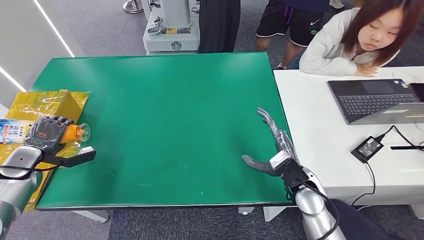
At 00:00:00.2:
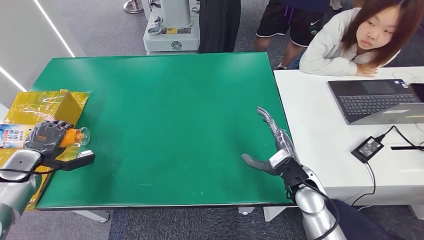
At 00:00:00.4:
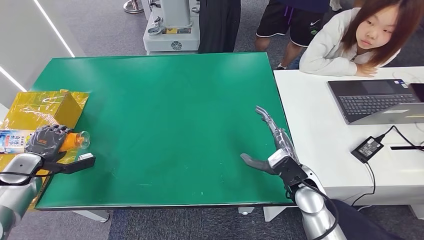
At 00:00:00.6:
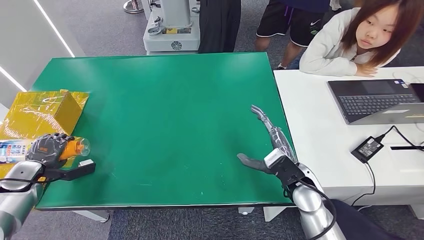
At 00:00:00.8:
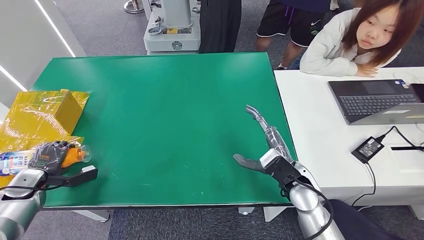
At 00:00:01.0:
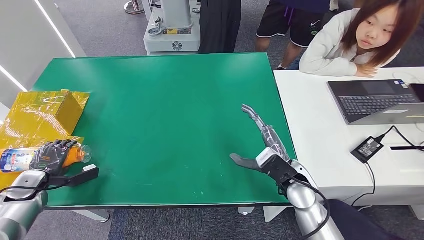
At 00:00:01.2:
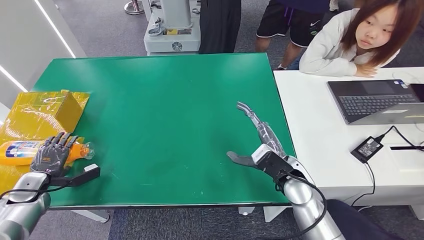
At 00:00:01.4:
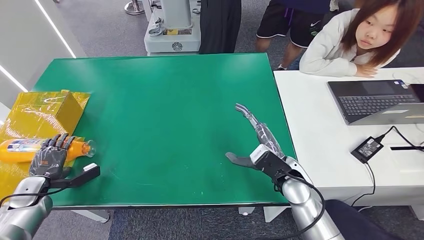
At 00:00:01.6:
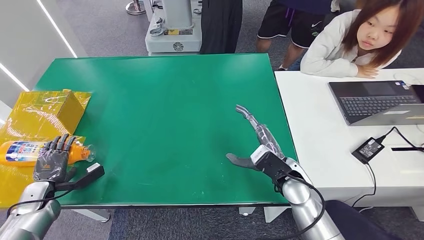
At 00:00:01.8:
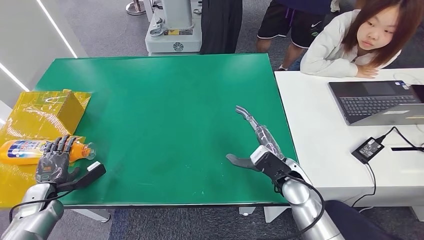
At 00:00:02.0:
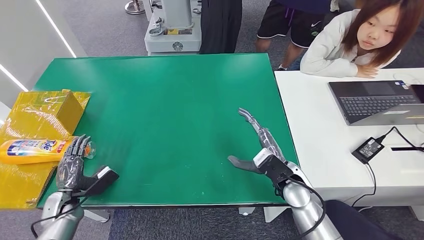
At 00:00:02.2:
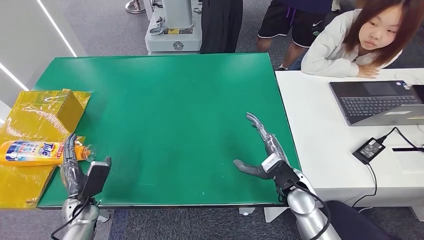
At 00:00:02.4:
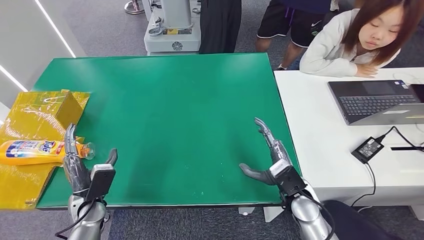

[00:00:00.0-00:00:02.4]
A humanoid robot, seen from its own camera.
Step, 00:00:00.0 to 00:00:02.4: Turn the bottle to the front side.
00:00:00.0 to 00:00:01.2: The left hand heads downward and backward, covering some 10 cm.
00:00:01.2 to 00:00:02.4: The left hand goes roughly 20 cm to the right. The right hand ends up about 5 cm from where it was.

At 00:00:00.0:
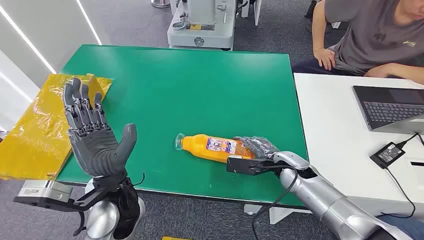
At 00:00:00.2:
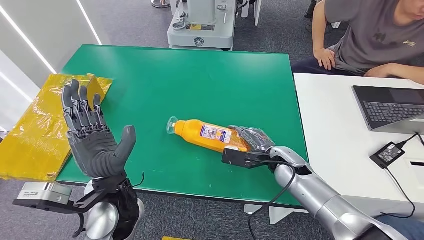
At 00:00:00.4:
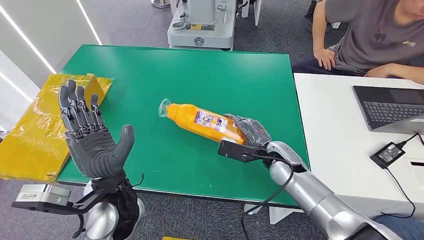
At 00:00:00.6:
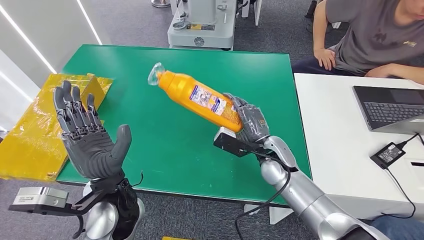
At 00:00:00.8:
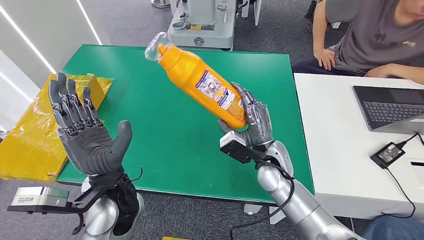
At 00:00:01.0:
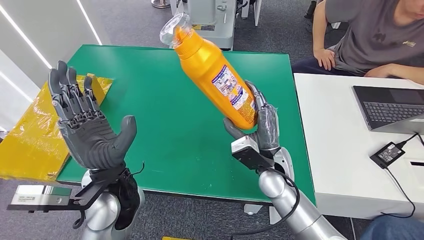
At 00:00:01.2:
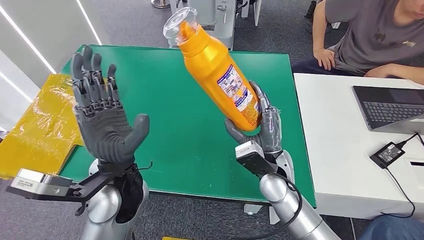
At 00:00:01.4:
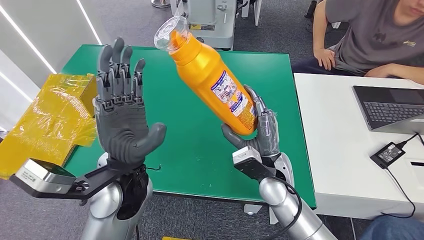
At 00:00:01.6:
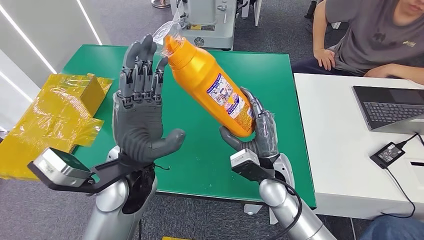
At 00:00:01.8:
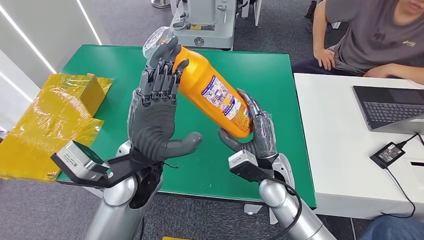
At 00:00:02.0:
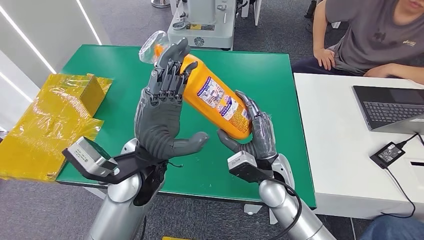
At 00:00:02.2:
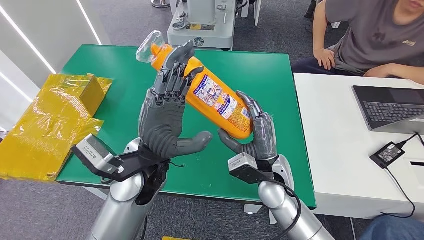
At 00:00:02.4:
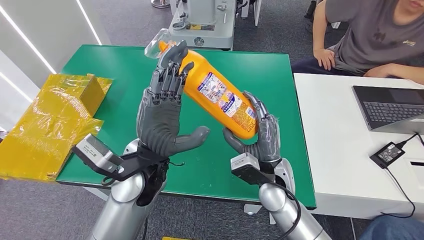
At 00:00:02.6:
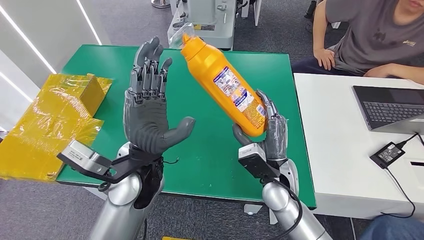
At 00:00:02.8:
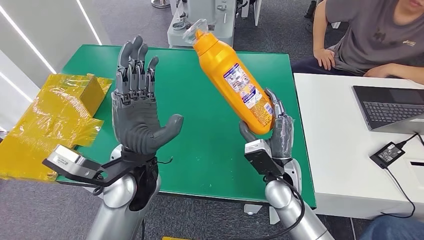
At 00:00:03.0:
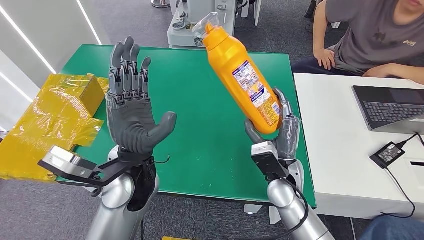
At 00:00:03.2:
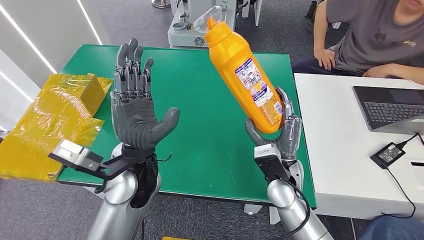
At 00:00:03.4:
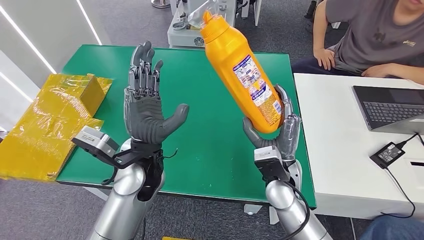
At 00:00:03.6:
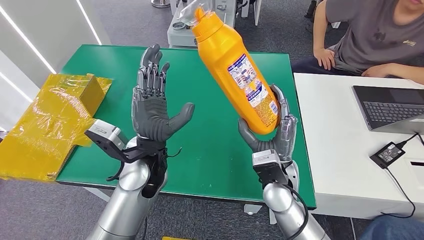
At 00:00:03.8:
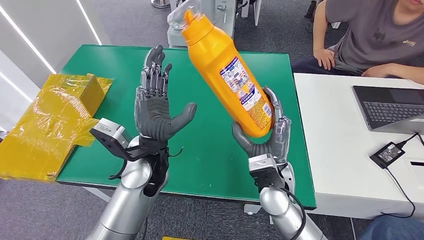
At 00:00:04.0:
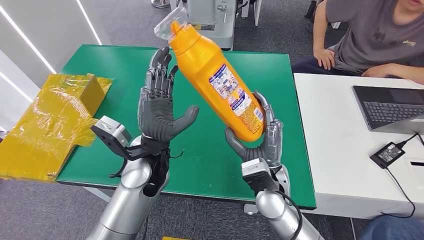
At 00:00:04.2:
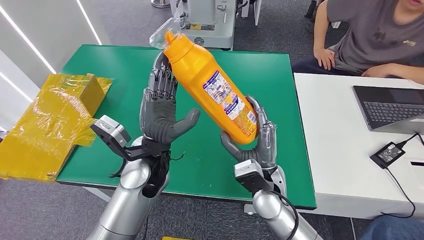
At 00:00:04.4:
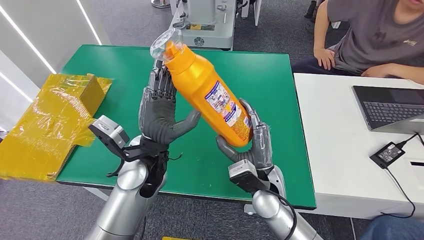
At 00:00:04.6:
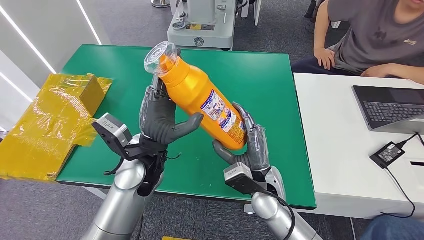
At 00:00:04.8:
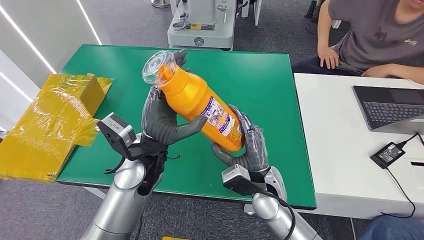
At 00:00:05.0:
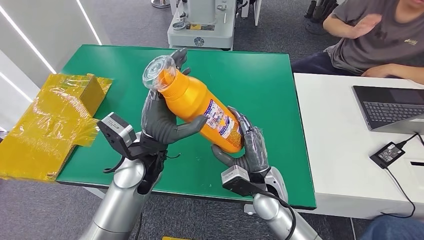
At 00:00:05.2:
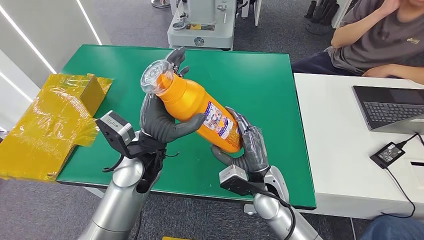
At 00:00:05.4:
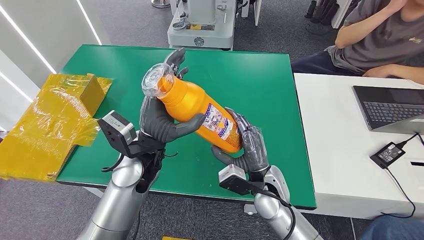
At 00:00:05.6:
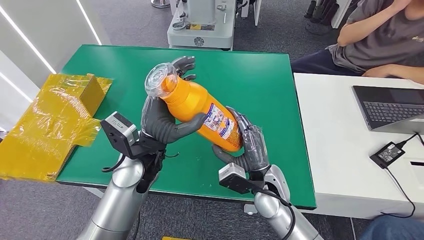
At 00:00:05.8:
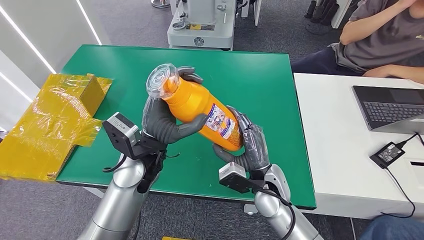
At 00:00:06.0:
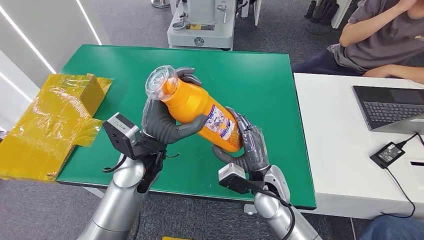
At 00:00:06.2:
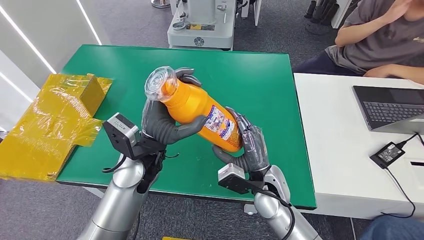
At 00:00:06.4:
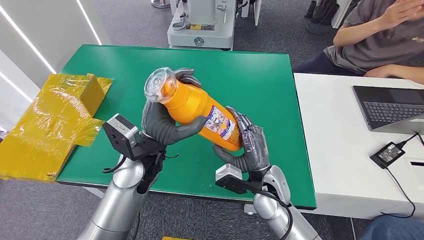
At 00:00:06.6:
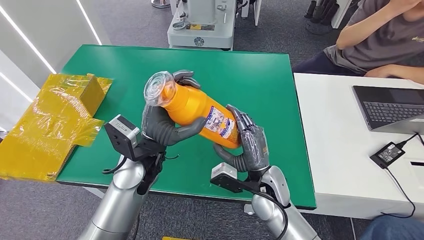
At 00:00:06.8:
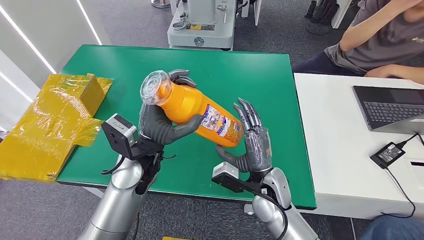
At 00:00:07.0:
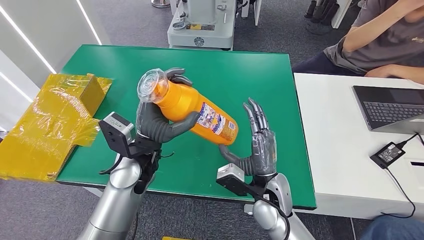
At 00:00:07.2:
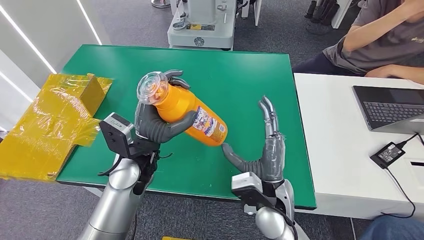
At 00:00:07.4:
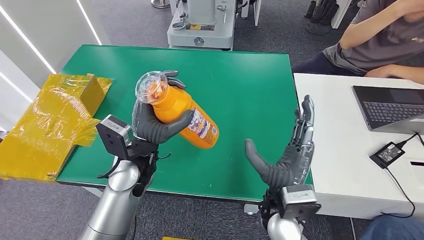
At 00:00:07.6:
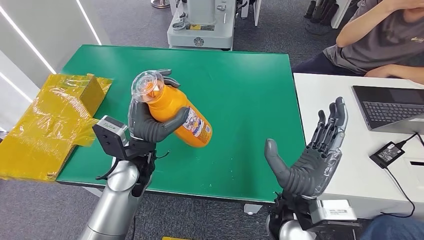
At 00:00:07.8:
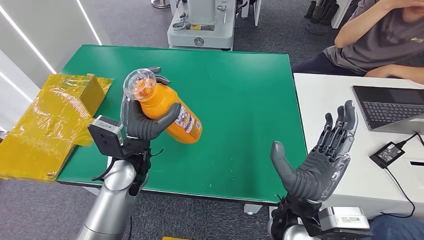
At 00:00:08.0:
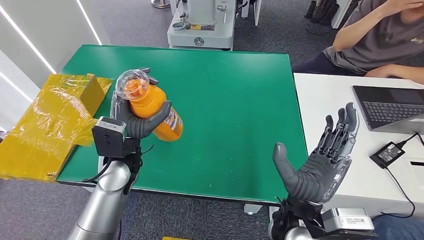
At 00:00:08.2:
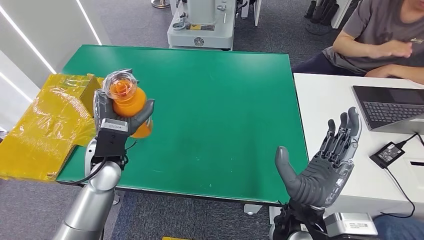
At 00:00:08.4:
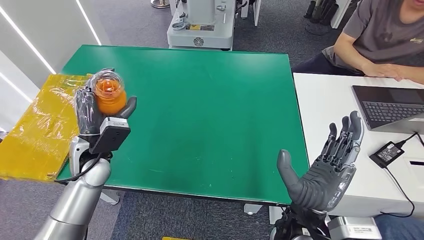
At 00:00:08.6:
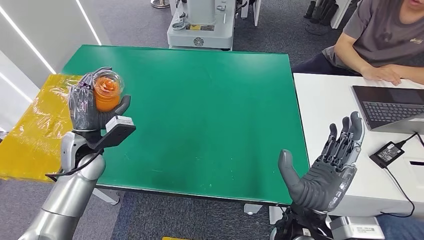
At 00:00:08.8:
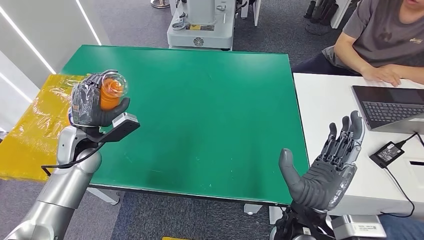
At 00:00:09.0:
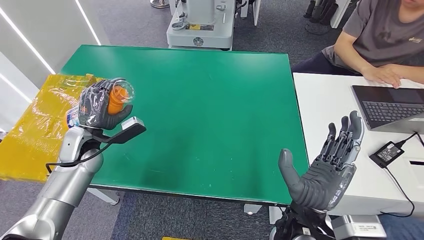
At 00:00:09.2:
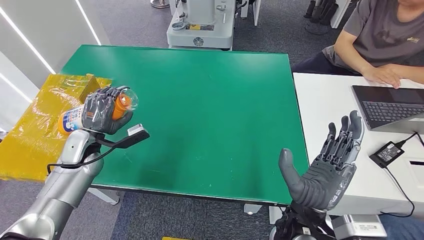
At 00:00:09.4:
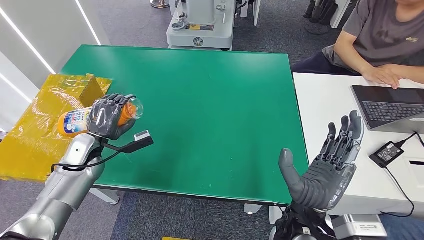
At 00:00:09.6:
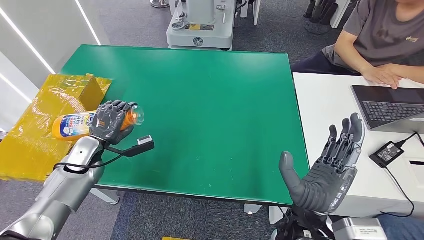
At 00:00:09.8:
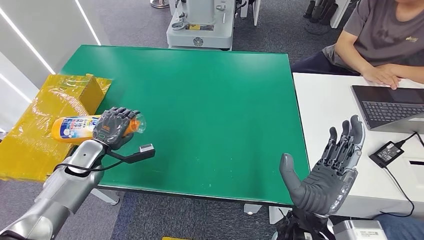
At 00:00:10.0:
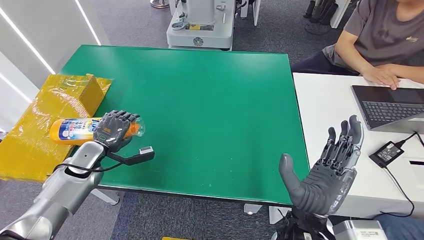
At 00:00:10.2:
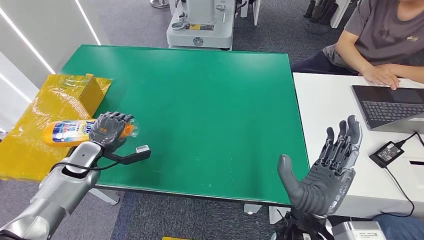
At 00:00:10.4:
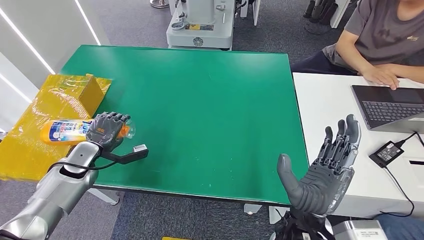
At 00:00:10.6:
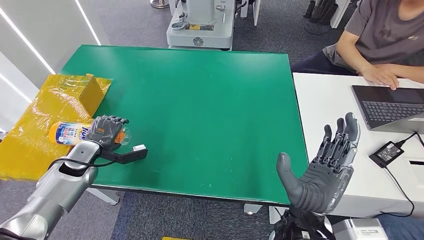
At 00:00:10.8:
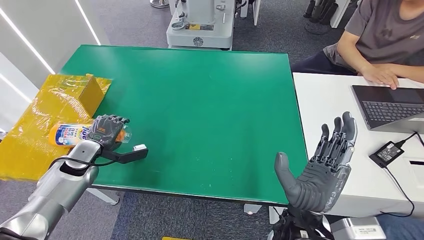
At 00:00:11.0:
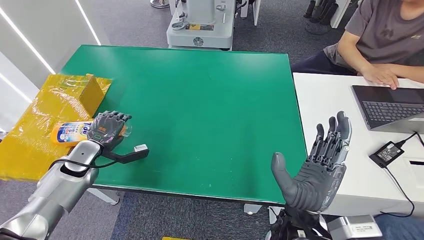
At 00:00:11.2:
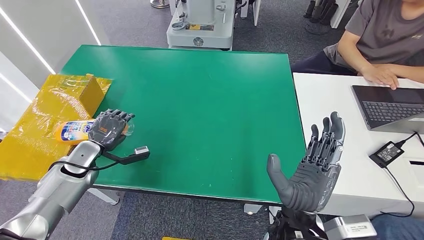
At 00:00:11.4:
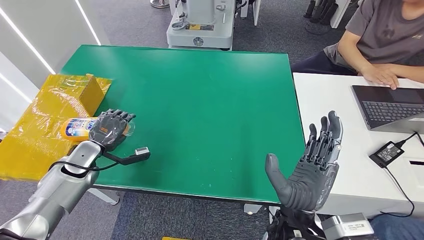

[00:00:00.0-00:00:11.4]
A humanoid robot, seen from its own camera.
Step, 00:00:00.0 to 00:00:04.8: Pick up the bottle from the table.
00:00:01.4 to 00:00:02.8: The hands stay close to where they were, moving slightly.
00:00:04.2 to 00:00:05.6: The hands stay close to where they were, moving slightly.
00:00:05.6 to 00:00:07.2: The hands move only a little.
00:00:08.6 to 00:00:10.0: The left hand moves to the left and downward, approximately 10 cm.
00:00:10.0 to 00:00:11.4: The hands stay close to where they were, moving slightly.

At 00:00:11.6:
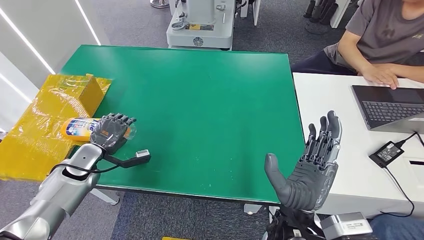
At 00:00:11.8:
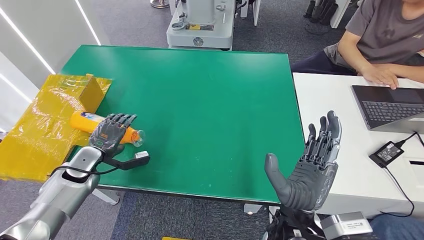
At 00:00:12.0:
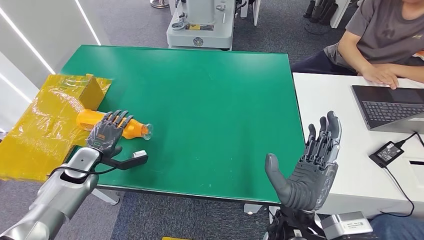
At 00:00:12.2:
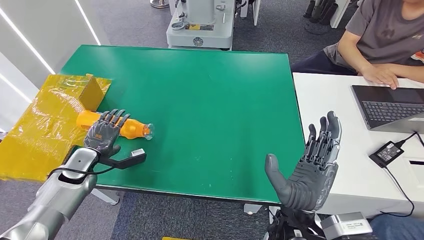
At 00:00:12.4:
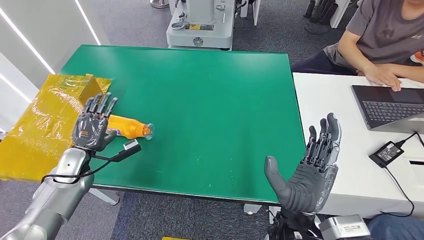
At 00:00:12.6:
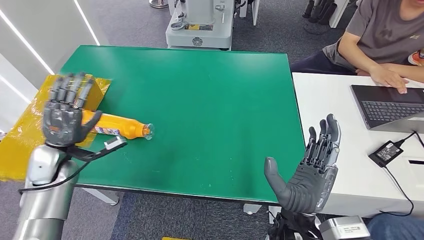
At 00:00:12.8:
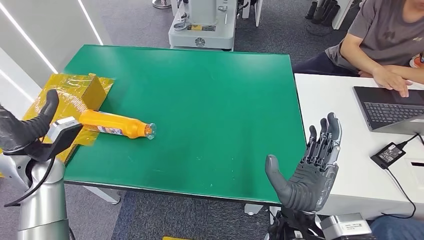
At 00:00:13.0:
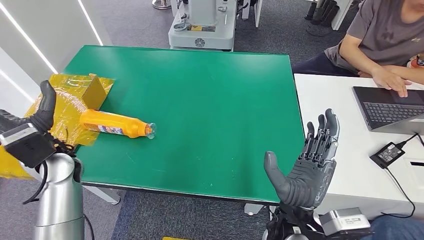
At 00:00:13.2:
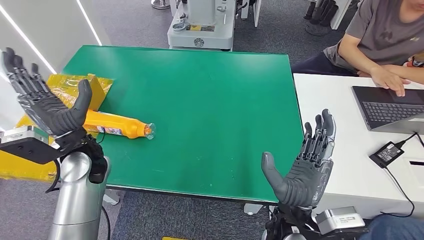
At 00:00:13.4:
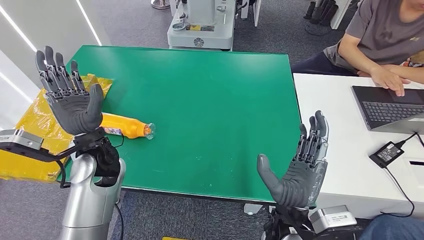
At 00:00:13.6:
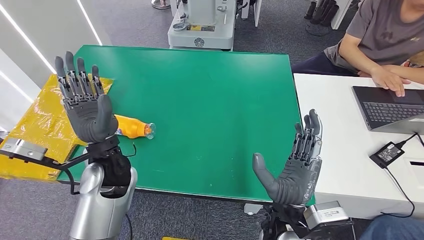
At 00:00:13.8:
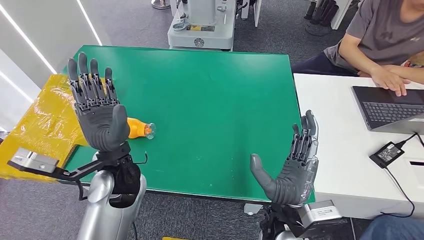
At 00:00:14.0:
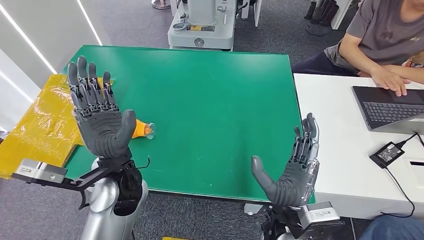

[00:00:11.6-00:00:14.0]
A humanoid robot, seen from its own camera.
Step, 00:00:11.6 to 00:00:14.0: Turn the bottle to the front side.
00:00:11.6 to 00:00:12.8: The left hand travels upward and to the right by about 10 cm.
